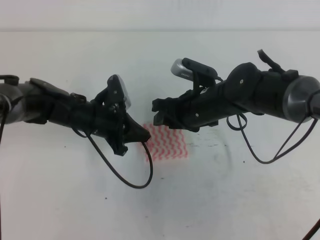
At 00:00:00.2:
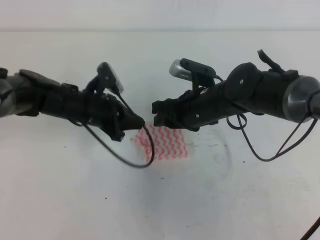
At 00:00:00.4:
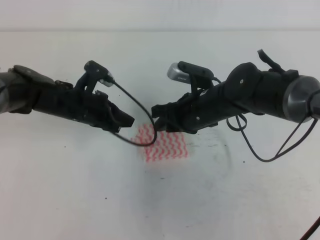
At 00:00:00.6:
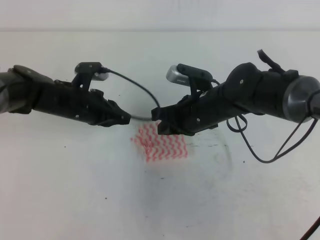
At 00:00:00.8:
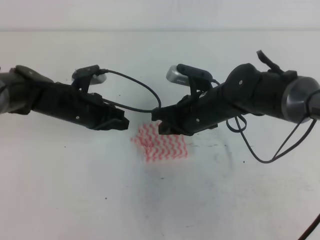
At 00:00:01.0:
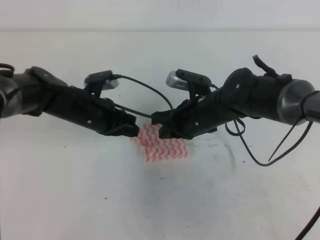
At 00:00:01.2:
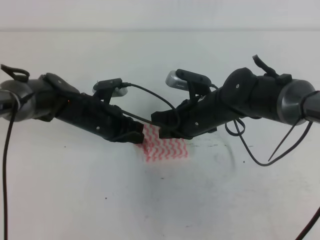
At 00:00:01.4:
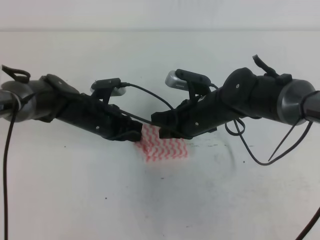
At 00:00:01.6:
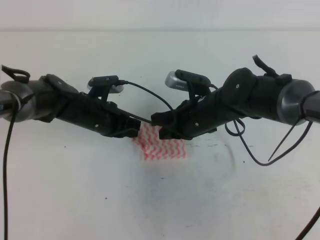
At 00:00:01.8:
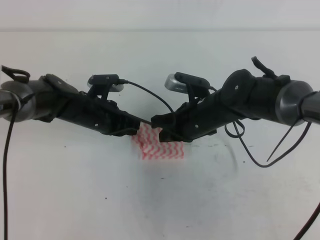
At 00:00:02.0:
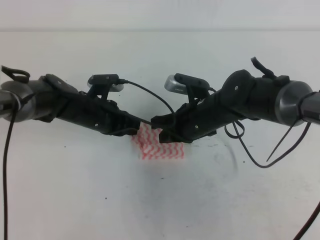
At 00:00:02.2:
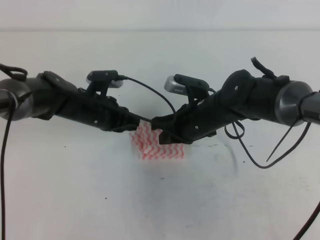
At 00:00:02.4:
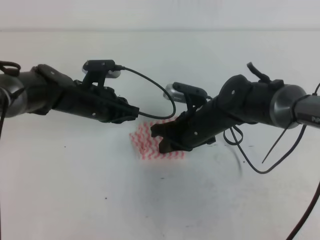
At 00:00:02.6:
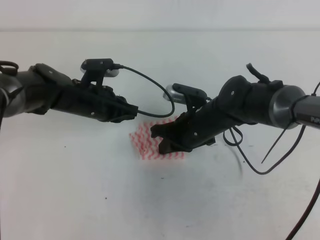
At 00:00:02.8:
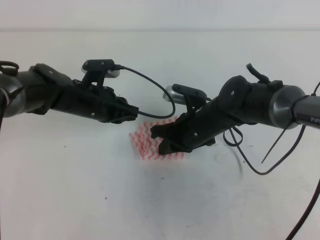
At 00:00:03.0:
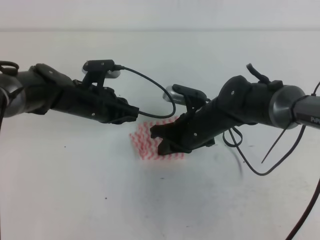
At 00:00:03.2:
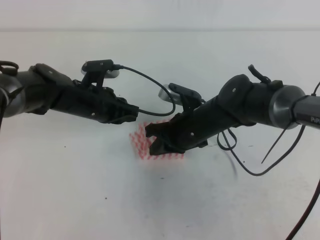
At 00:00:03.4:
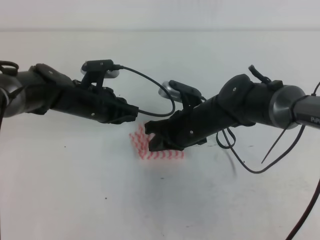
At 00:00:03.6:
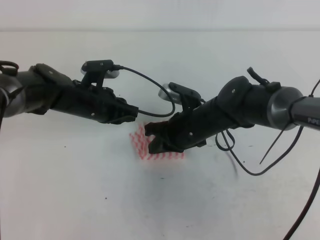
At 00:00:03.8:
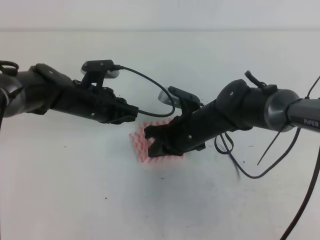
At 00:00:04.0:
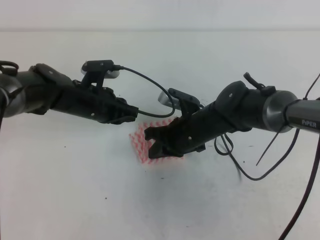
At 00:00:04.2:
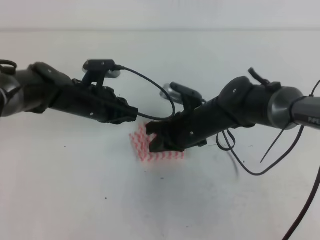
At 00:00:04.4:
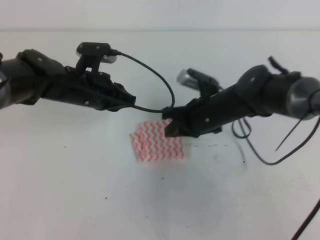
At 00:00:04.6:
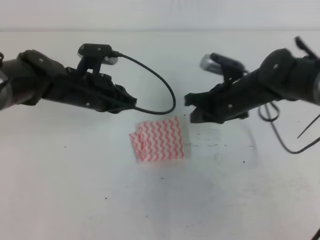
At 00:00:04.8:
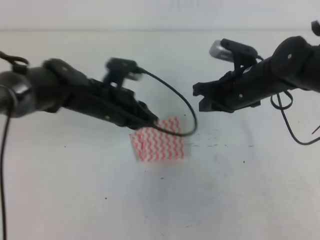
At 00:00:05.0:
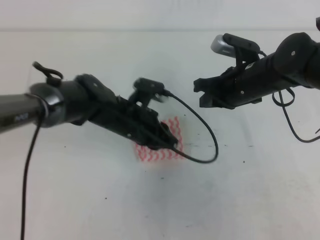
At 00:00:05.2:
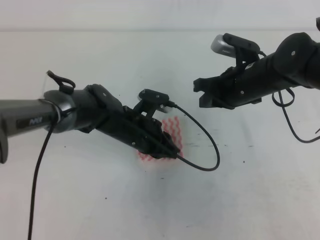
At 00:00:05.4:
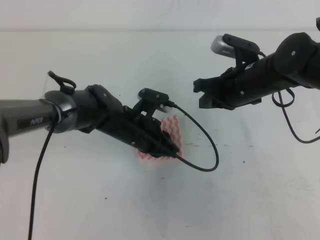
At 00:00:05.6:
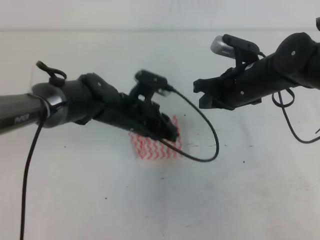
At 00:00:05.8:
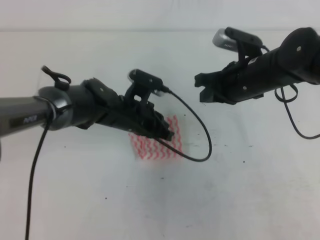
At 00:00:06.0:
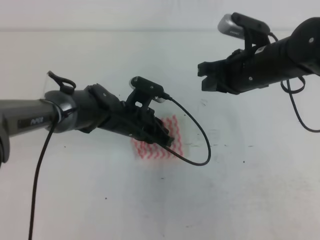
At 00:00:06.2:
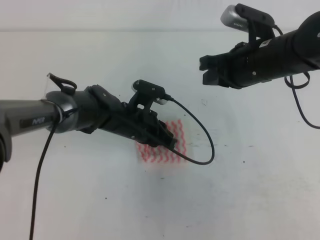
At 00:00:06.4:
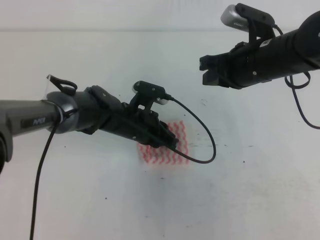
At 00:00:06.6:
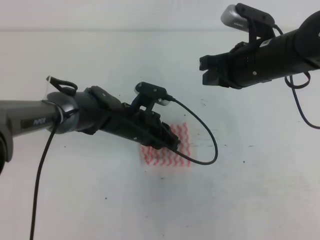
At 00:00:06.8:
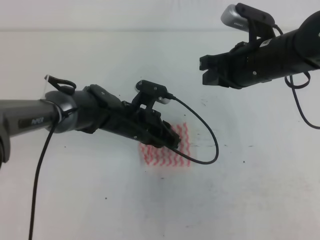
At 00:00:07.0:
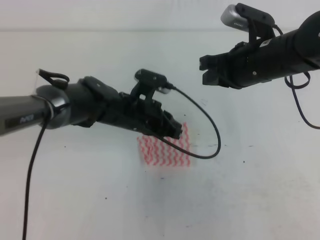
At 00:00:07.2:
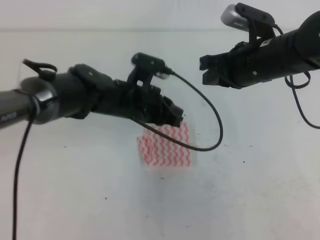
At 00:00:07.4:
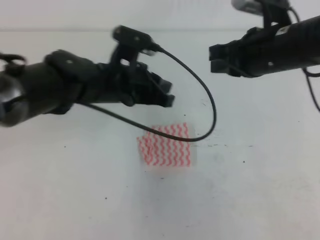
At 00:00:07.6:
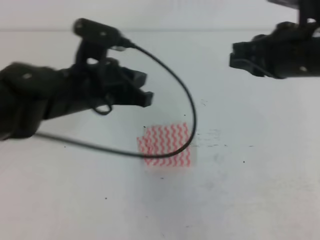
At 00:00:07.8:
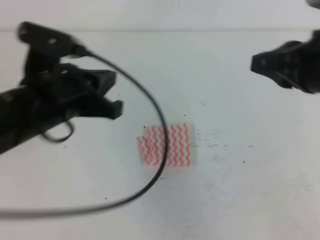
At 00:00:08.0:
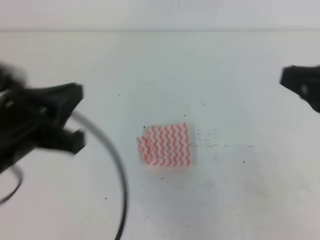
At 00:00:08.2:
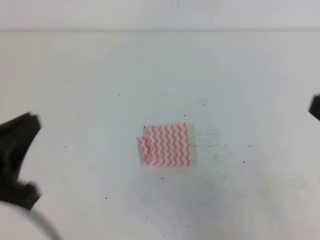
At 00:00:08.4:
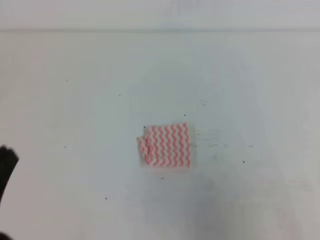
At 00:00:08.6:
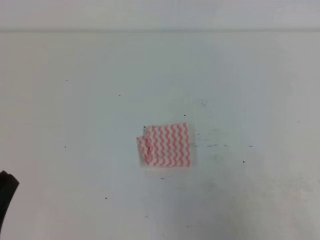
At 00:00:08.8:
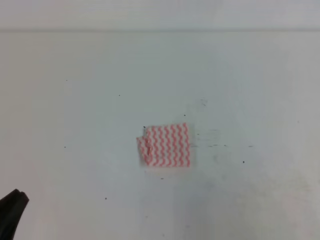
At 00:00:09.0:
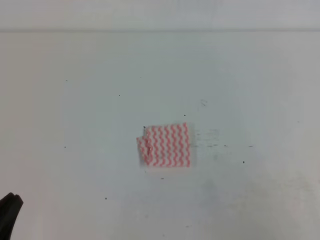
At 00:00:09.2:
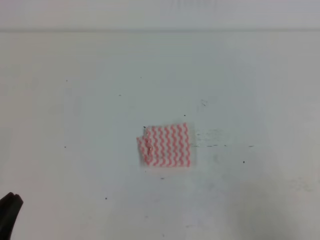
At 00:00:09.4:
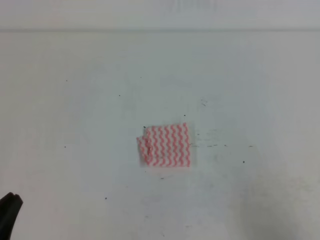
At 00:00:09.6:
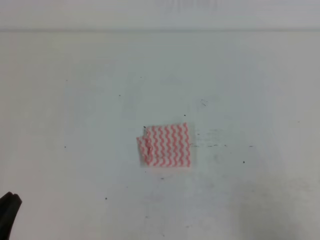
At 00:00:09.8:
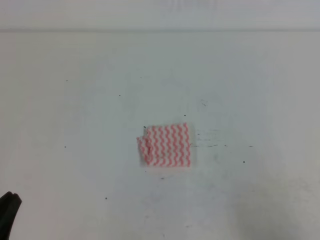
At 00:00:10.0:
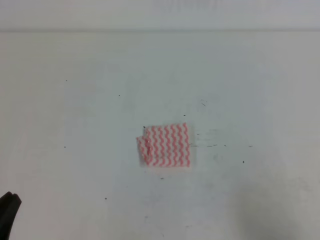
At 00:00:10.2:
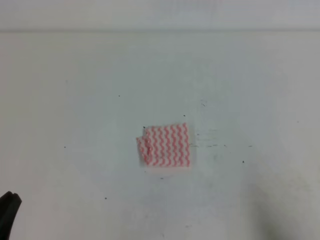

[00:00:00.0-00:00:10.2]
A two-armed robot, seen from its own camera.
00:00:00.0 to 00:00:01.4: The right gripper closes.
00:00:01.4 to 00:00:04.4: The grippers move only a little.
00:00:04.4 to 00:00:05.8: The left gripper is displaced to the right by roughly 10 cm. The right gripper goes approximately 10 cm upward and to the right.
00:00:05.8 to 00:00:07.2: The left gripper heads upward, covering roughly 5 cm. Meanwhile the right gripper changes place by approximately 5 cm.
00:00:07.2 to 00:00:08.8: The right gripper shifts approximately 35 cm backward and to the right; the left gripper shifts about 35 cm backward and to the left.
00:00:08.8 to 00:00:10.2: The right gripper goes some 10 cm downward.
